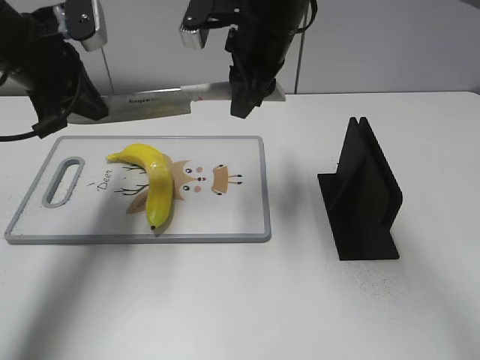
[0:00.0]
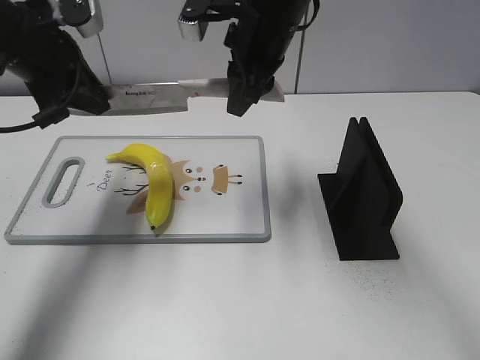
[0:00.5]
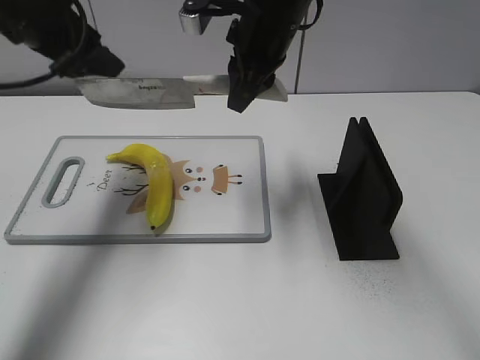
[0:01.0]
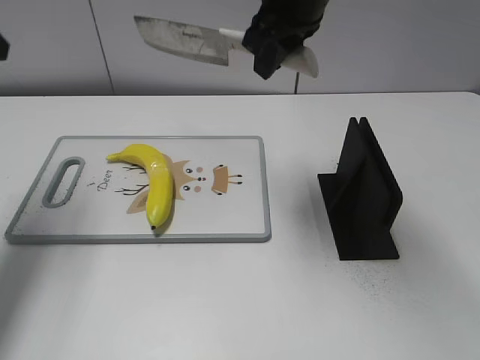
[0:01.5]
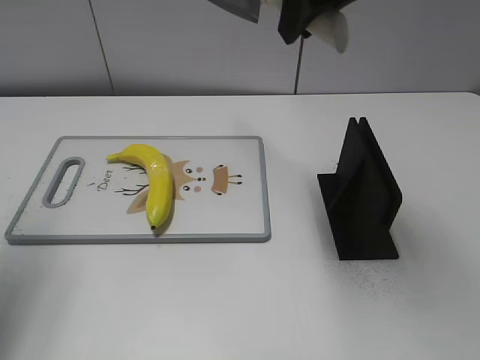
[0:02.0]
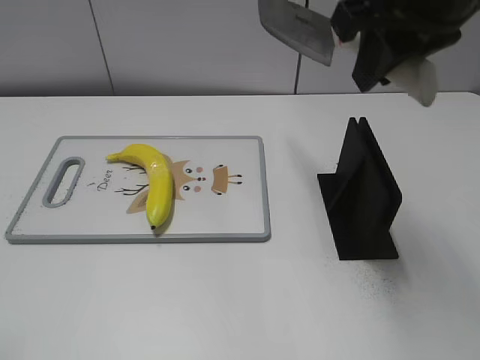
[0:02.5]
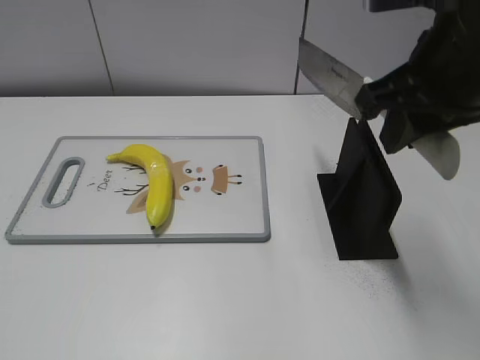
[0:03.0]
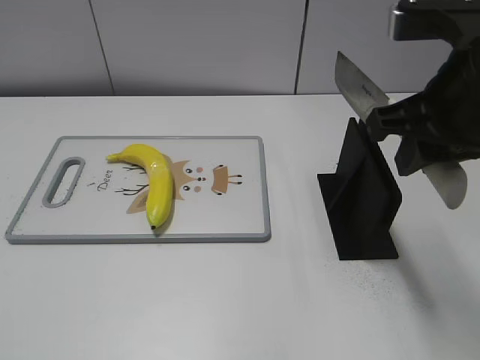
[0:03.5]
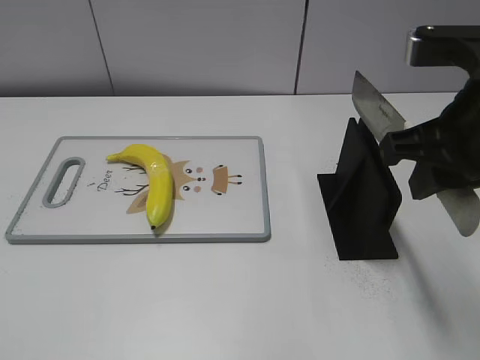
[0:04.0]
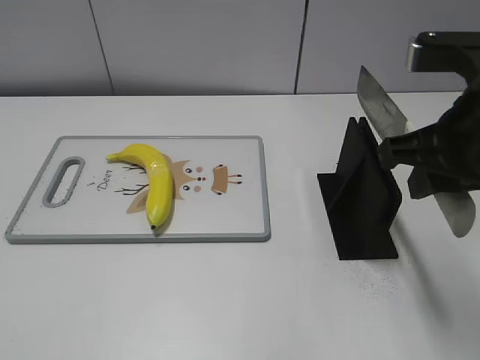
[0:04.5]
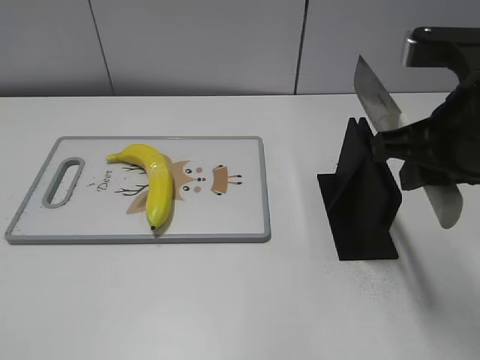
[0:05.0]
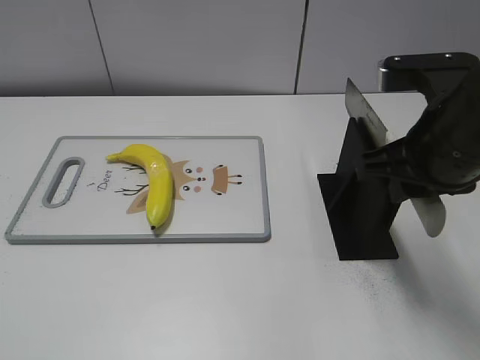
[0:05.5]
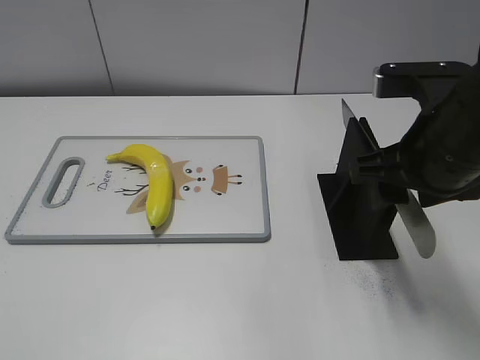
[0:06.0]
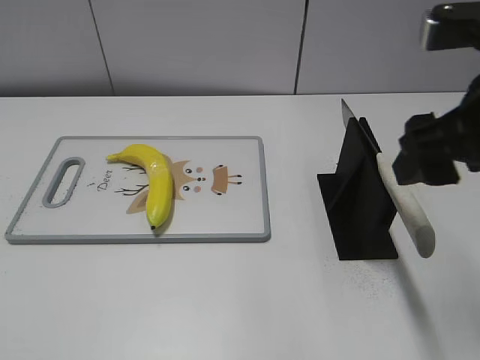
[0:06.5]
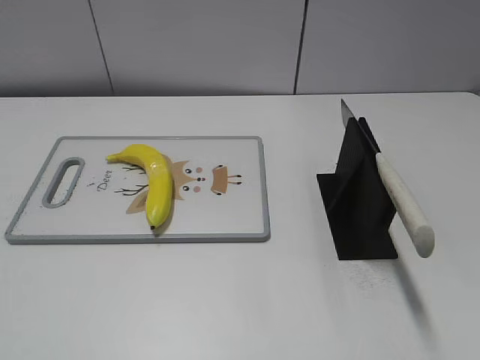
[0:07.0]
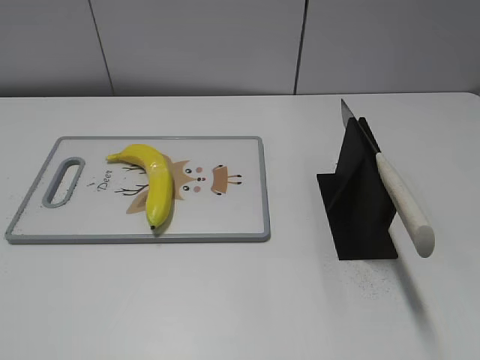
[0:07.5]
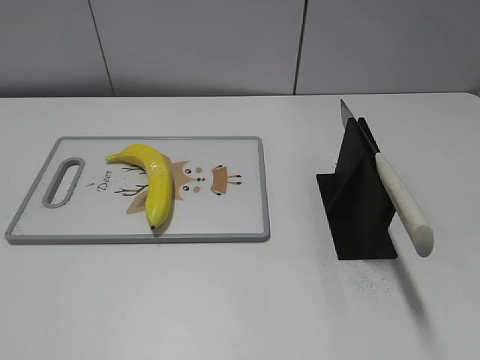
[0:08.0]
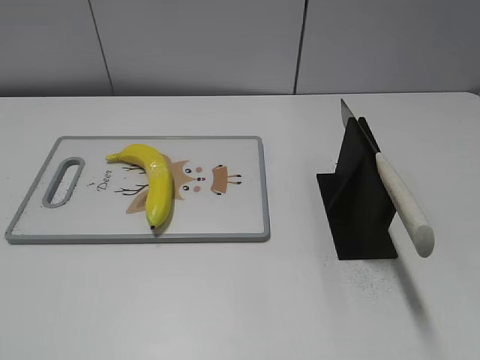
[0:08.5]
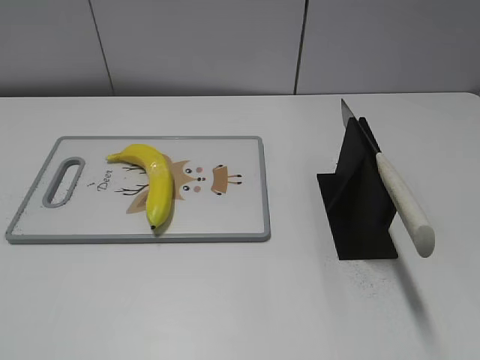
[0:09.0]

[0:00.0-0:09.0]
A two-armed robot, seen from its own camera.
Task of the whole recording: cut plastic banana.
Step, 0:00.0 to 0:01.0: Cut the banana with your right hand.
Step, 0:01.5 to 0:03.0: Lift the knife with your right hand.
Step, 0:03.5 to 0:09.0: Place the knife on the storage rack with your right hand.
0:00.0 to 0:02.0: The right gripper heads upward, backward and to the right, covering some 15 cm. The left gripper goes approximately 15 cm backward, to the left and upward, and opens its fingers.
0:02.0 to 0:04.5: The right gripper shifts approximately 20 cm backward, downward and to the right. The left gripper is displaced backward by about 25 cm.
0:04.5 to 0:07.0: The right gripper heads backward and to the right, covering approximately 15 cm, and opens.

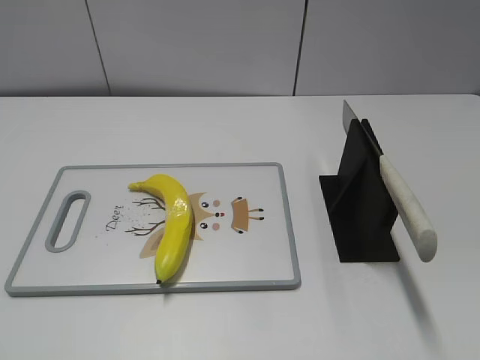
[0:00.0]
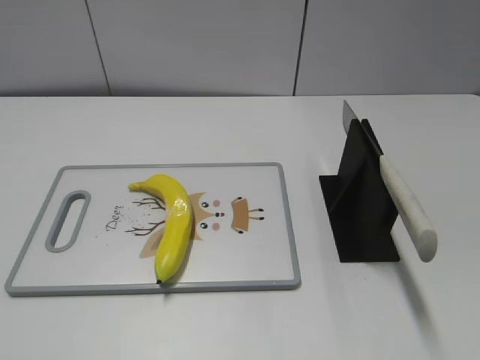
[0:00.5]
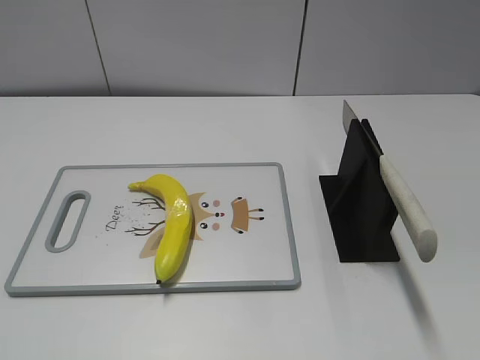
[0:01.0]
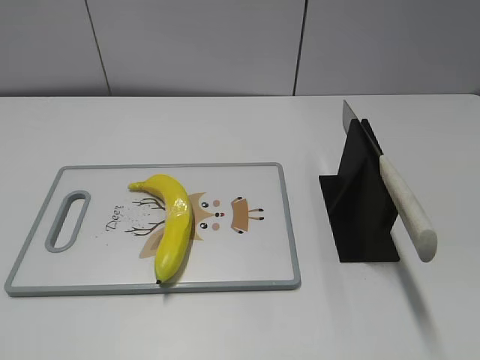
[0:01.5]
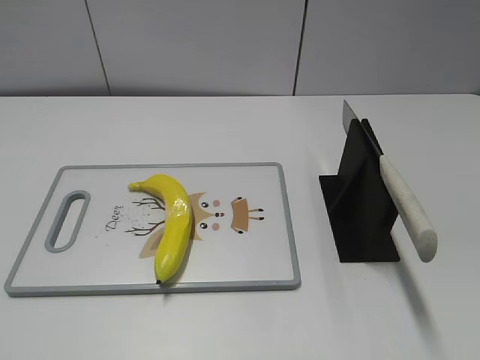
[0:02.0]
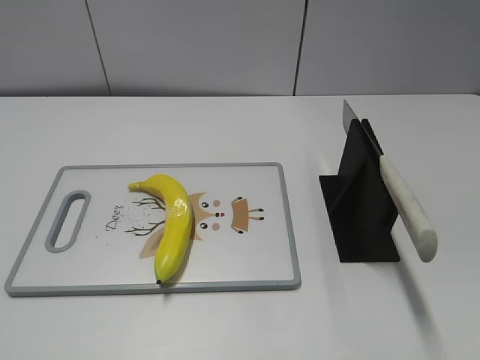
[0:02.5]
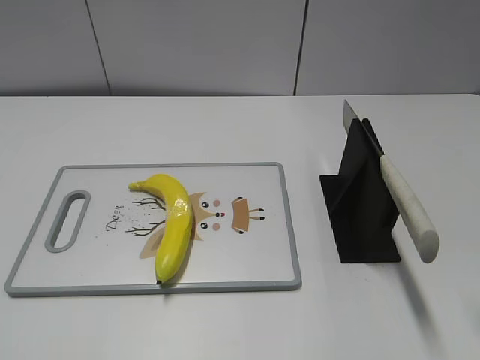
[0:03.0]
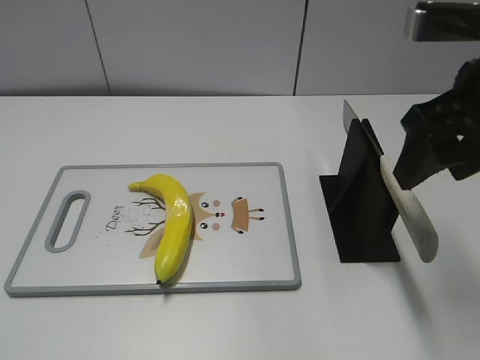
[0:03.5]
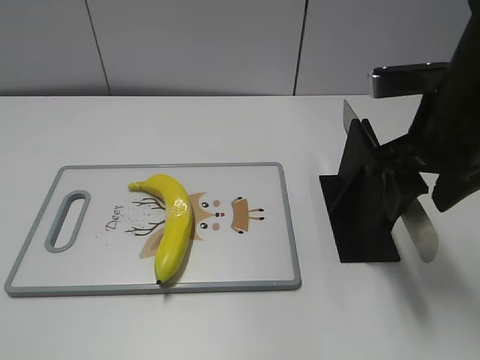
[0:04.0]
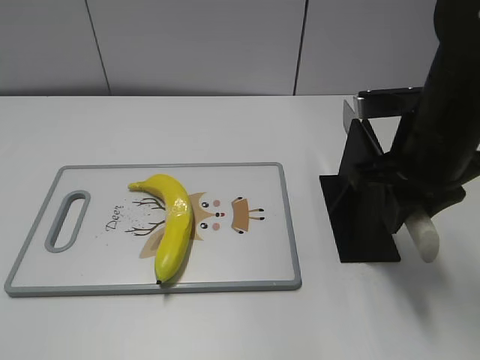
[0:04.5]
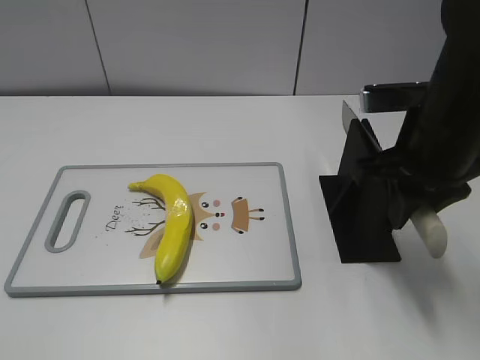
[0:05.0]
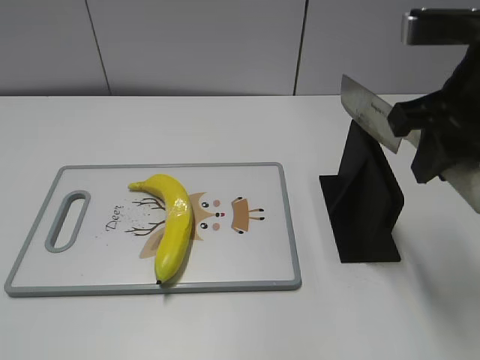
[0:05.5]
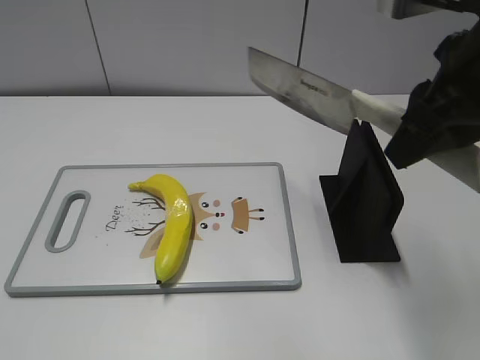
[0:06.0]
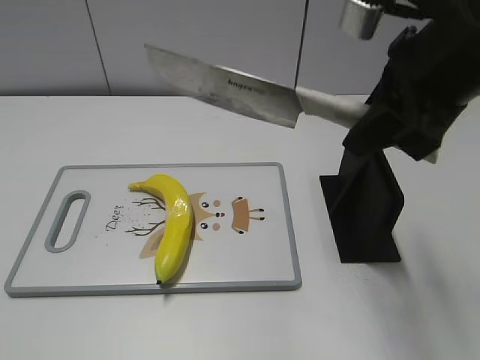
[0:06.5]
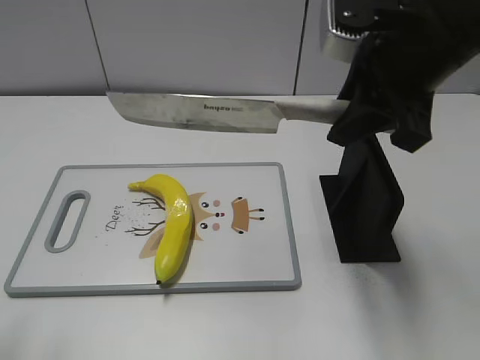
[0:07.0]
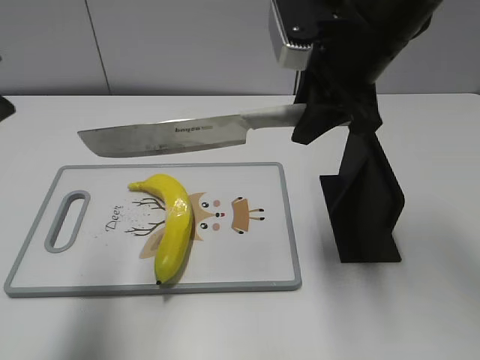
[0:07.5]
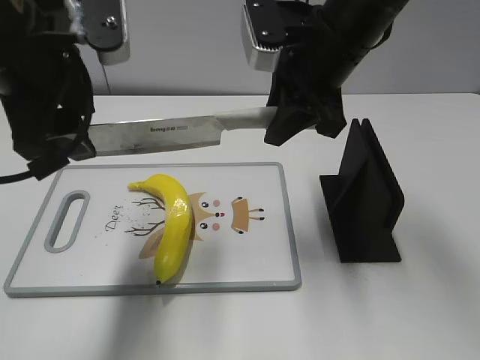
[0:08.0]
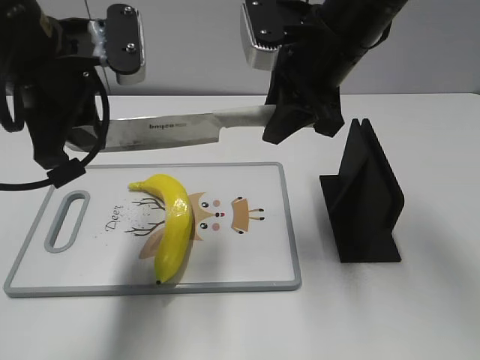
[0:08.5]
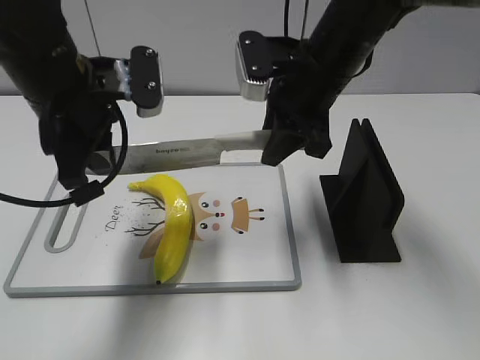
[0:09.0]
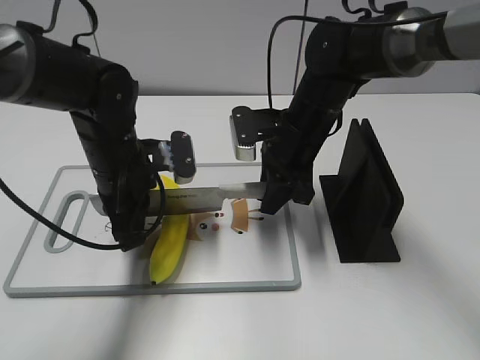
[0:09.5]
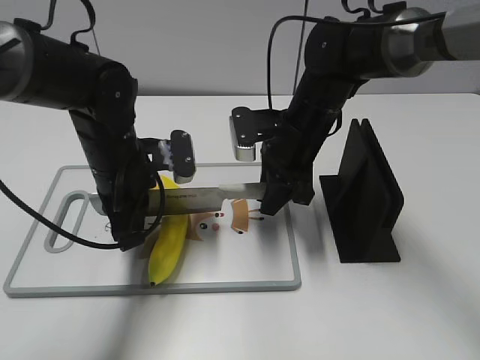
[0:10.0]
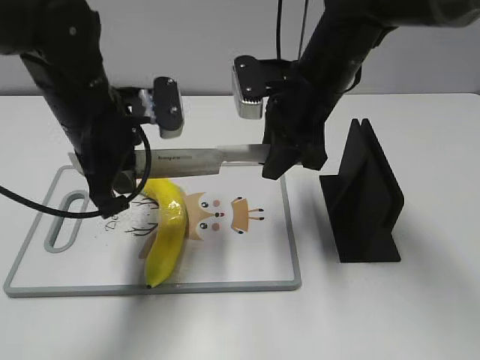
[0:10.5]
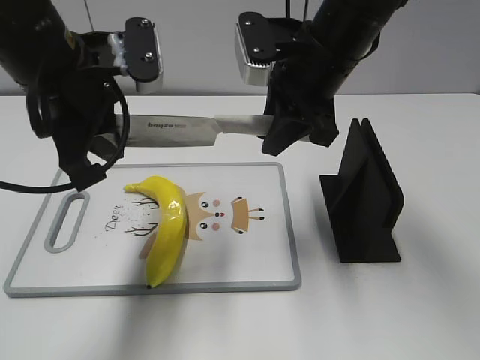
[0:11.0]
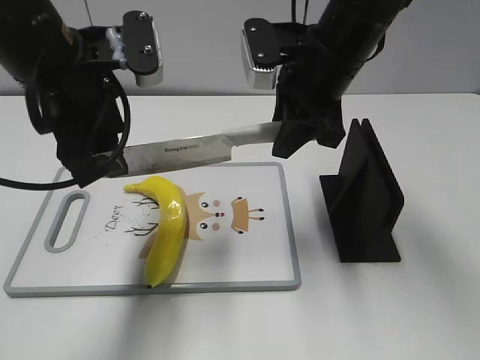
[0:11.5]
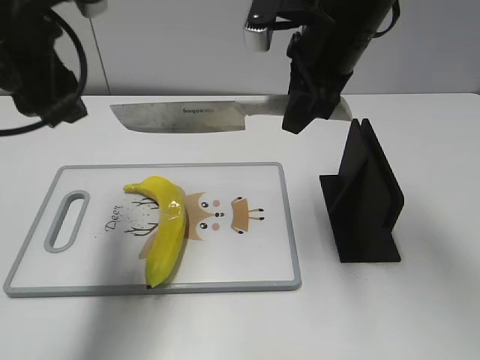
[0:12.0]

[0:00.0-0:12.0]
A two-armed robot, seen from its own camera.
Task of the whole recording: cut plastic banana.
Step, 0:00.0 to 0:05.5: Grab the knife handle with your right hand.
Step, 0:06.0 to 0:10.5: Lift the knife with your right hand.
Step, 0:11.0 to 0:12.0: Cut the banana with your right hand.
0:02.0 to 0:04.0: The right gripper shifts roughly 30 cm forward and to the left.
0:04.0 to 0:06.0: The right gripper is displaced upward by about 5 cm, and closes its fingers.
0:06.0 to 0:08.0: The right gripper moves forward, to the left and downward, roughly 15 cm. The left gripper shifts about 30 cm forward and to the right.
0:08.0 to 0:10.0: Both grippers travel together downward, roughly 15 cm. The left gripper closes its fingers.
0:10.0 to 0:12.0: The grippers both shift upward by approximately 15 cm. The left gripper opens its fingers.

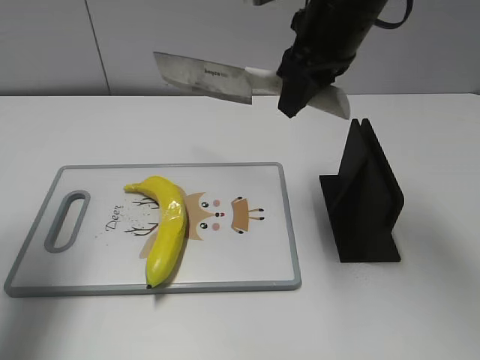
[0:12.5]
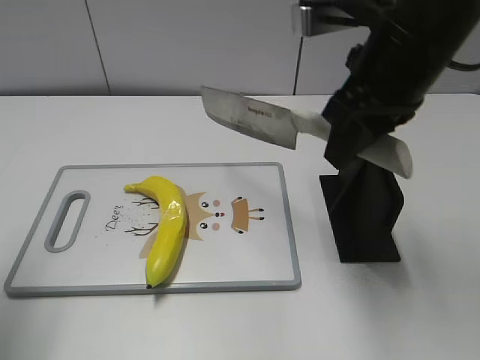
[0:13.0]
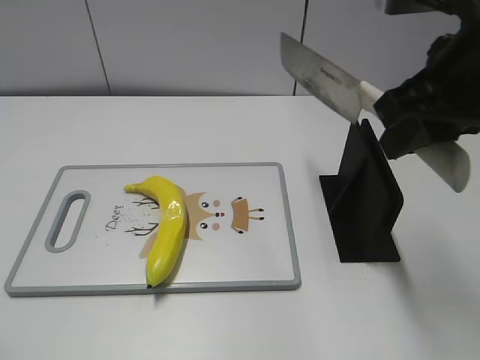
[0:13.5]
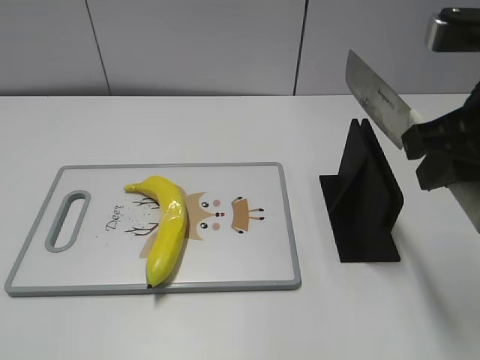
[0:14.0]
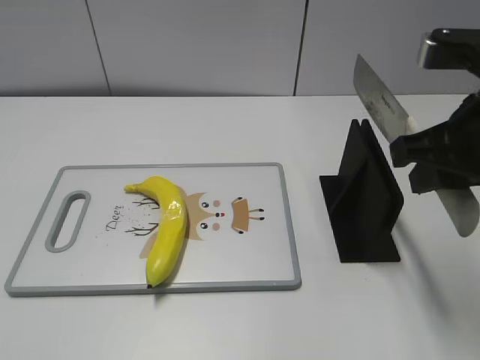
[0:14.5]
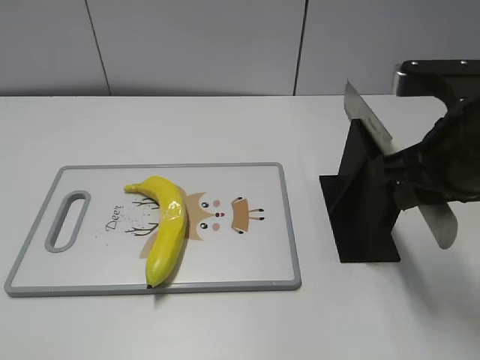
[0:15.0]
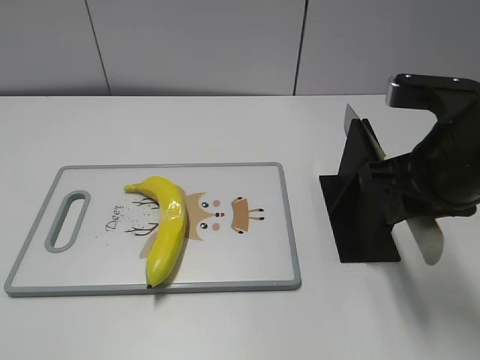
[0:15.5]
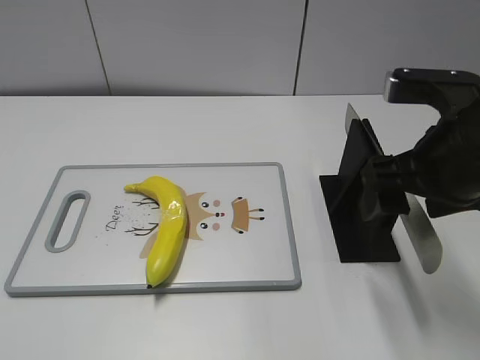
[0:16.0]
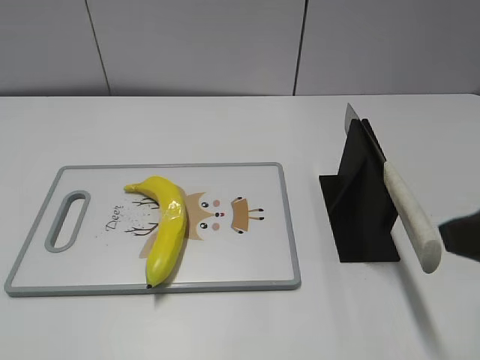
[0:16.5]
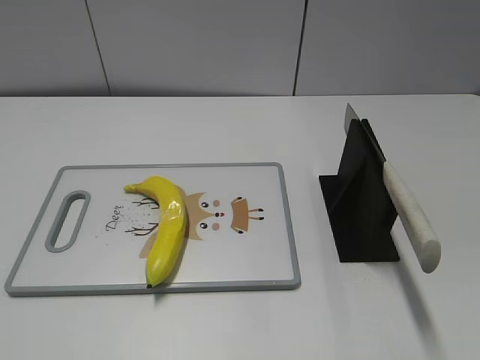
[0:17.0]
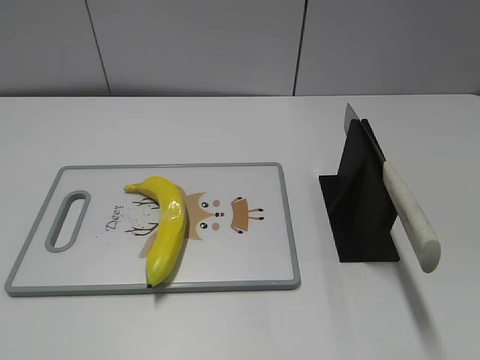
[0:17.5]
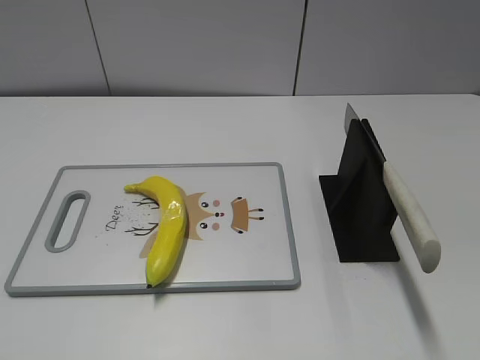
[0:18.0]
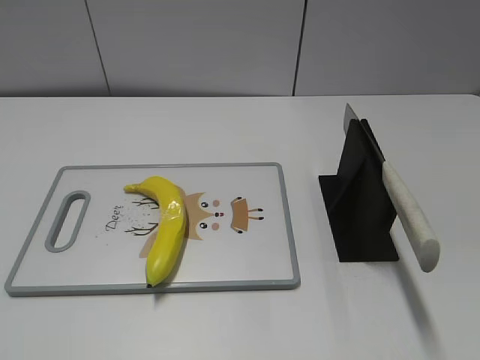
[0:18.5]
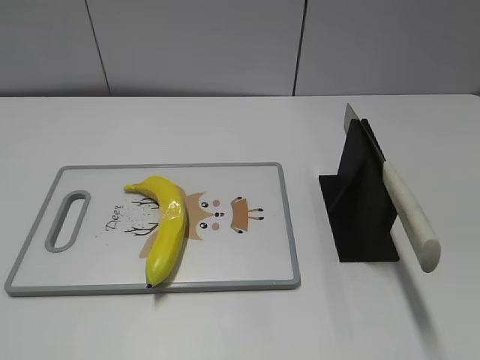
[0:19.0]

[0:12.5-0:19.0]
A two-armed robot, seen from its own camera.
Task of the whole recording: cut plastic banana.
Step, 0:12.5 to 0:14.0: Lift the knife with your right hand.
Step, 0:14.5 to 0:19.0: Place the knife on the storage rack with your right hand.
0:12.5 to 0:14.5: The left gripper is displaced backward by roughly 30 cm. The right gripper travels backward and to the right by approximately 15 cm.
0:14.5 to 0:17.0: The right gripper heads backward and to the right, covering some 15 cm, and opens up.
